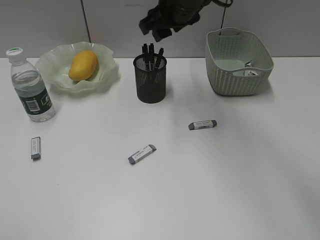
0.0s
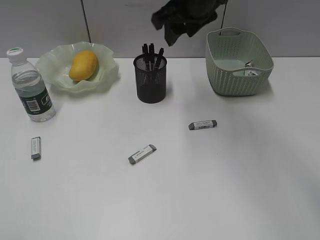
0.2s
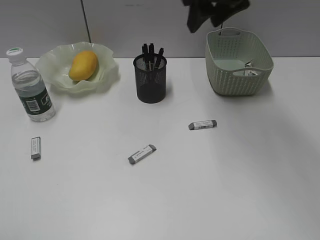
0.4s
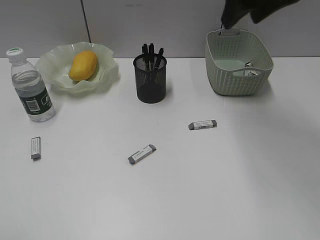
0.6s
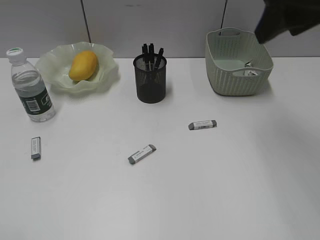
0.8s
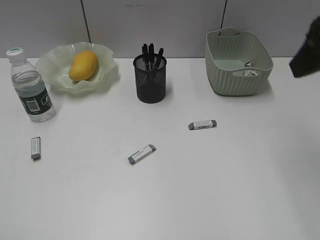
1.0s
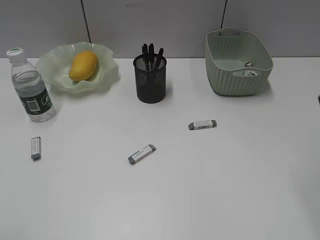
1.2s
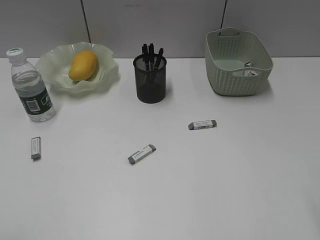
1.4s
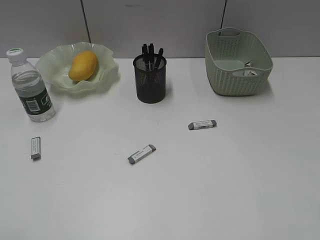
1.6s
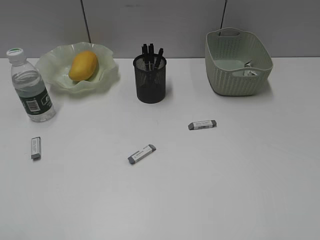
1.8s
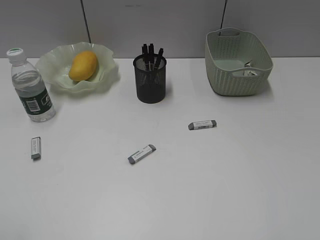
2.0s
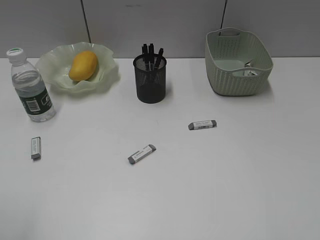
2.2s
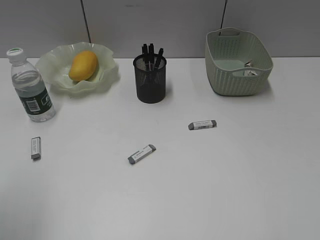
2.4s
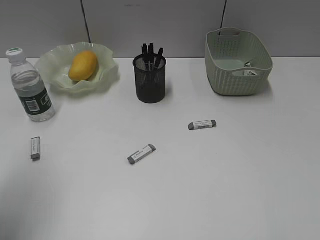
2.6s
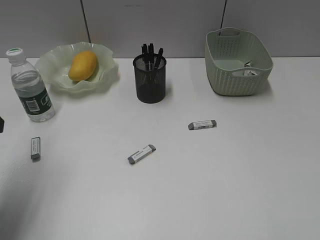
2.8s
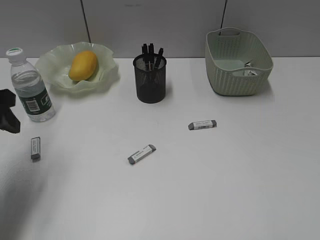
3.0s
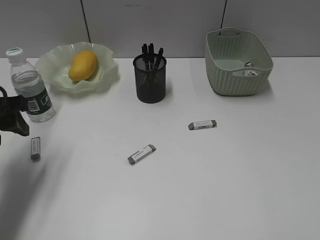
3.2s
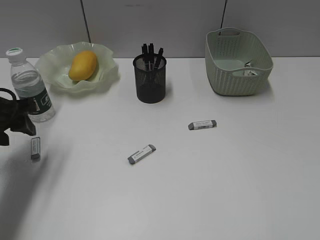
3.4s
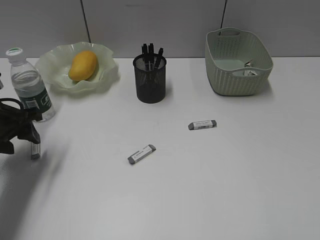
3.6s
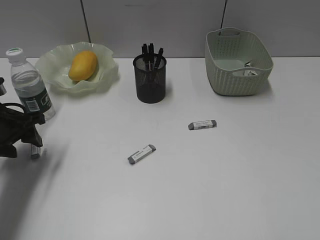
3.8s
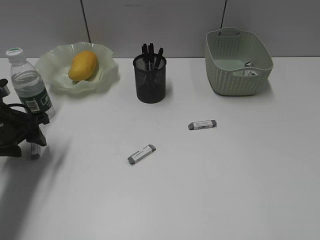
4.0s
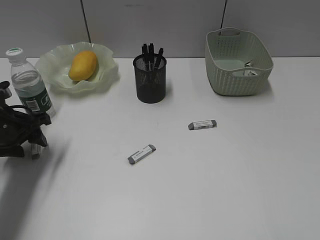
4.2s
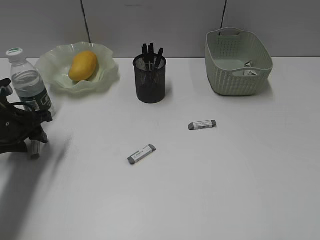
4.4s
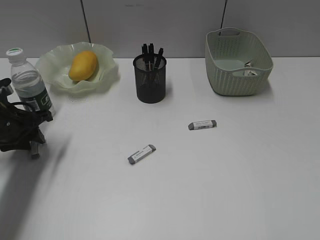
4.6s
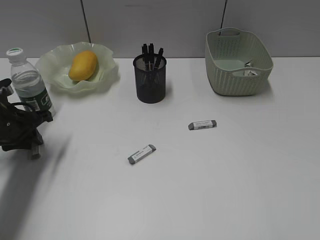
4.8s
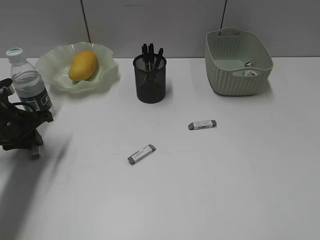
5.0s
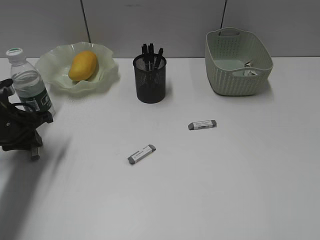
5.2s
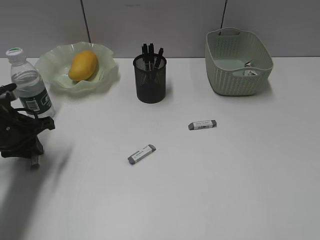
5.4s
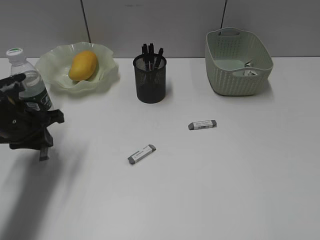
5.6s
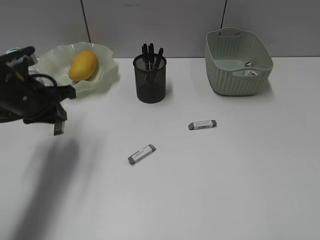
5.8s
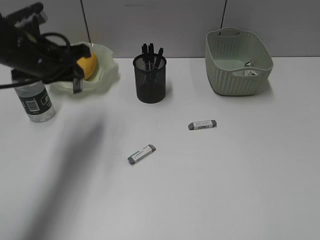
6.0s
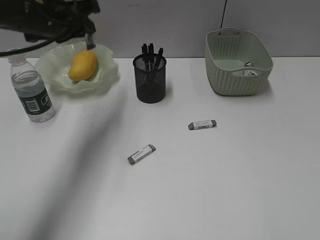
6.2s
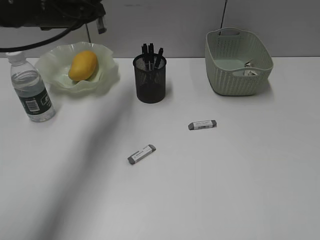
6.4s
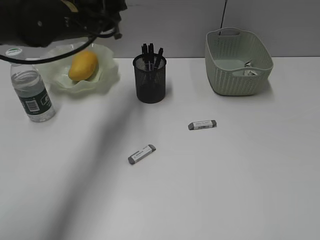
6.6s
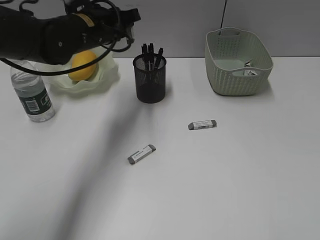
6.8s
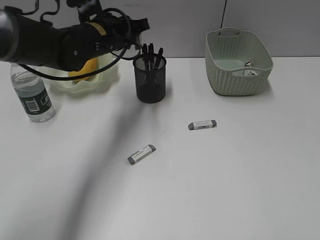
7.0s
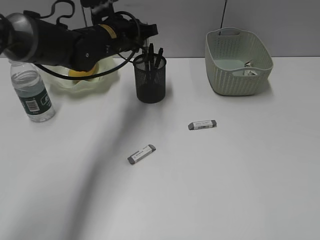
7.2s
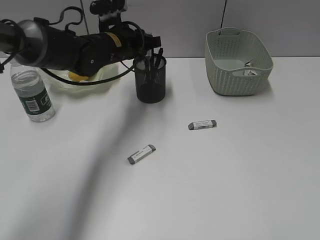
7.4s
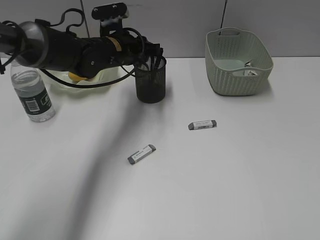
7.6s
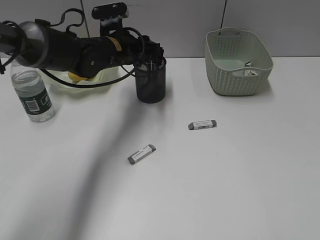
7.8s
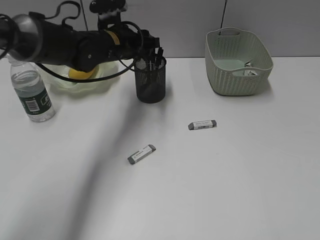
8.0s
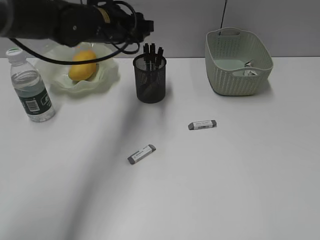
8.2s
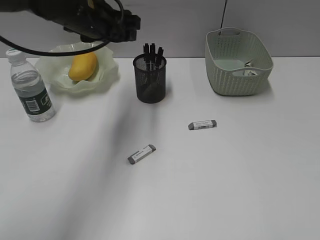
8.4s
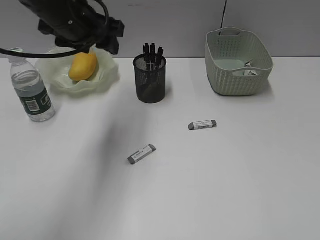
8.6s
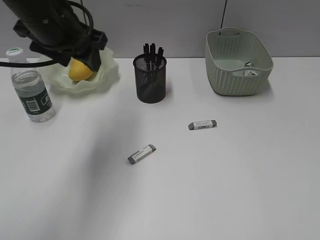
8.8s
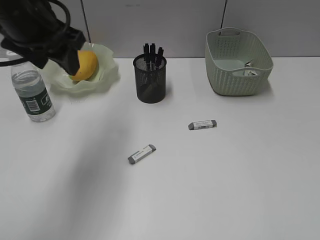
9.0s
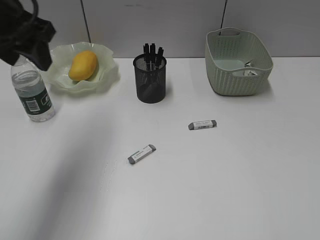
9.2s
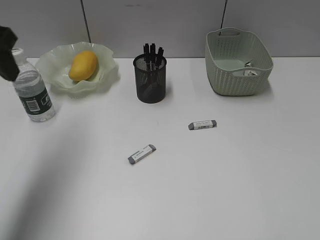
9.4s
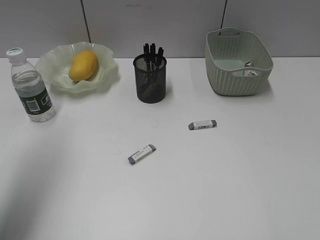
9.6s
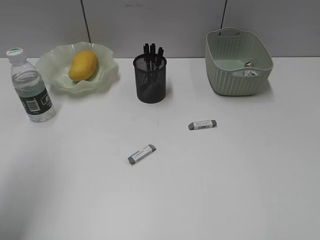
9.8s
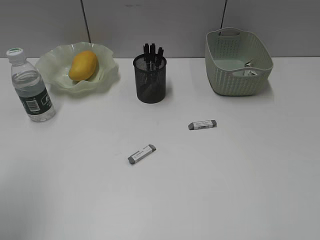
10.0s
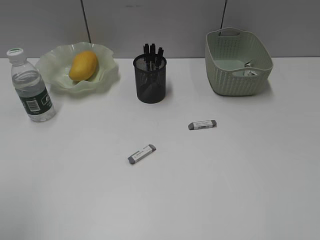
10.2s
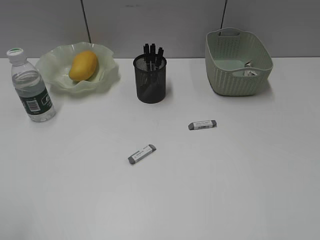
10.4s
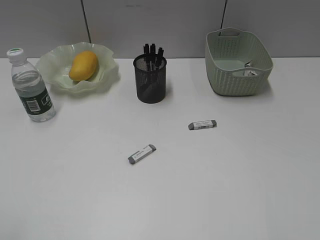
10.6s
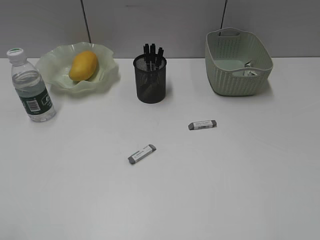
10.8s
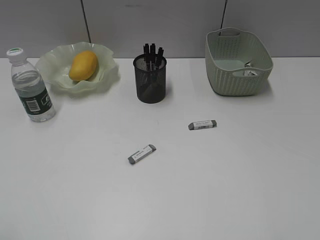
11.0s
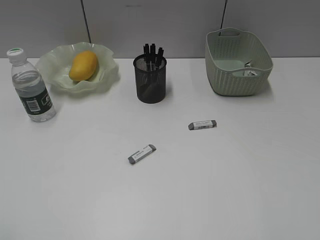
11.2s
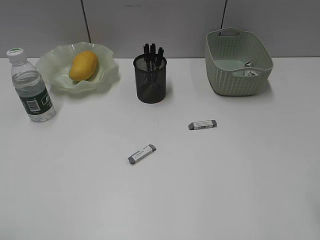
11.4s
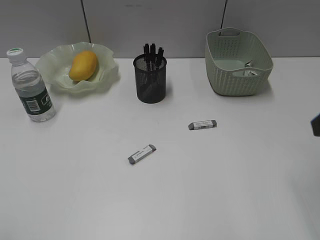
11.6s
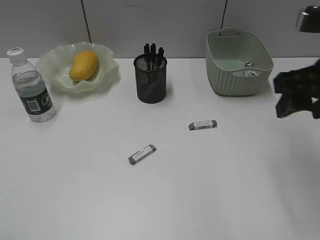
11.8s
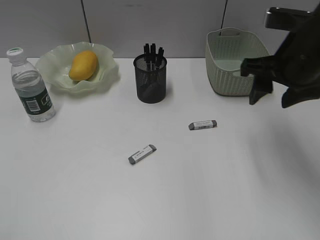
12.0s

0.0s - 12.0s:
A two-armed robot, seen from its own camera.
Step, 0.0s - 5.0s: Grasp the eraser with left gripper.
Step, 5.2s - 8.0s: Place the eraser in pen holder with left gripper.
0.0s - 1.6s: The right gripper shifts about 40 cm backward and to the right.
1.6s - 3.0s: The left gripper travels forward by some 25 cm.
3.0s - 4.4s: The left gripper heads downward and forward, covering approximately 15 cm.
4.4s - 6.0s: The left gripper moves upward and to the right, about 15 cm, and closes up.
6.0s - 7.6s: The left gripper heads to the right, forward and downward, covering approximately 15 cm.
7.6s - 9.0s: The left gripper goes about 20 cm upward, backward and to the left, and opens.
9.0s - 10.4s: The left gripper heads backward and to the left, covering about 30 cm.
10.4s - 12.0s: The right gripper heads forward, covering approximately 25 cm.

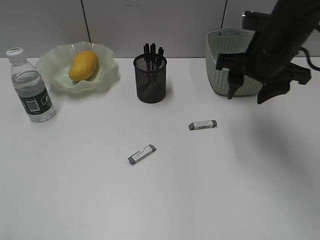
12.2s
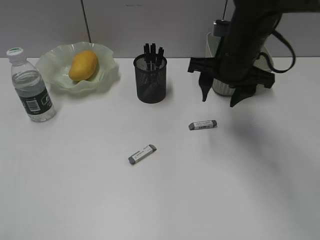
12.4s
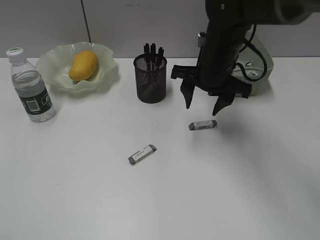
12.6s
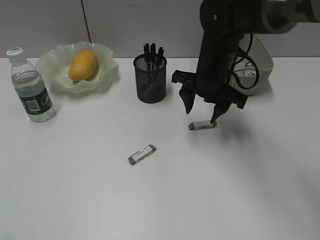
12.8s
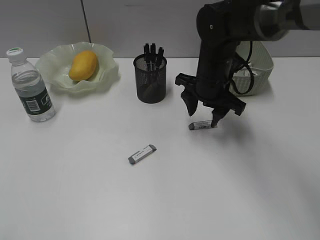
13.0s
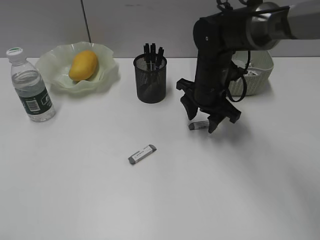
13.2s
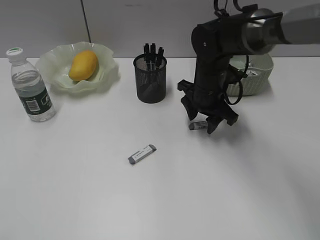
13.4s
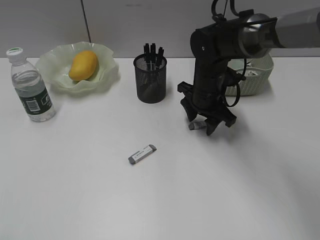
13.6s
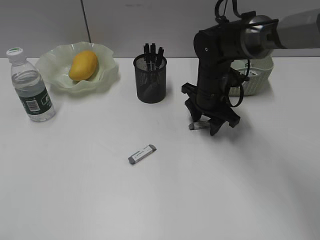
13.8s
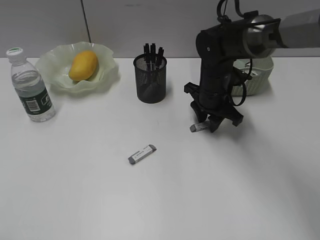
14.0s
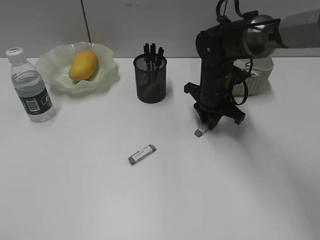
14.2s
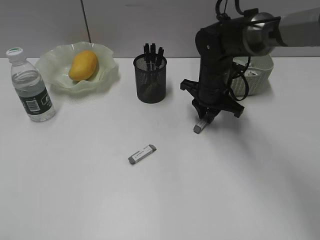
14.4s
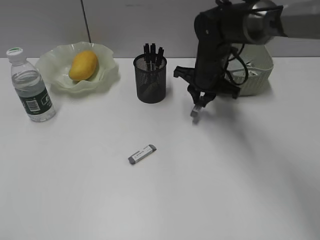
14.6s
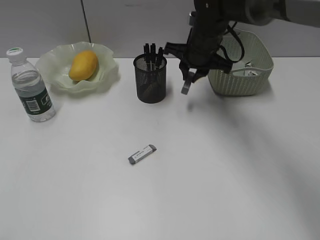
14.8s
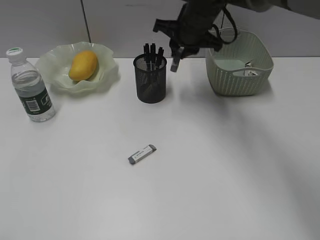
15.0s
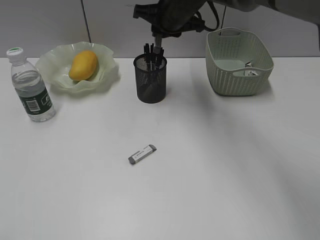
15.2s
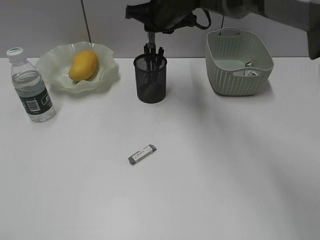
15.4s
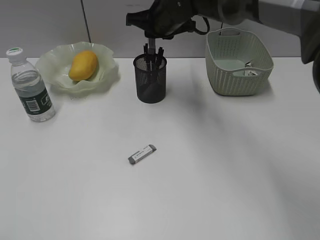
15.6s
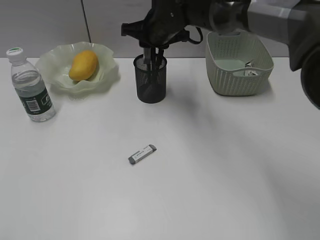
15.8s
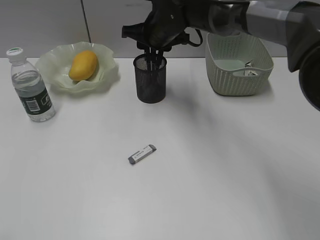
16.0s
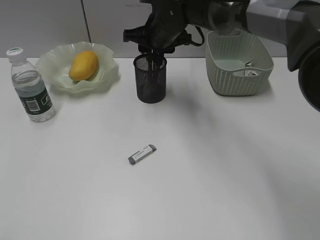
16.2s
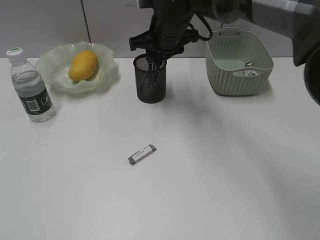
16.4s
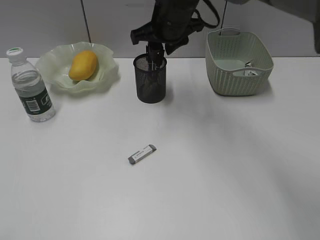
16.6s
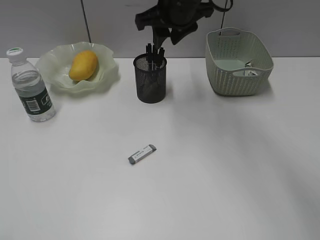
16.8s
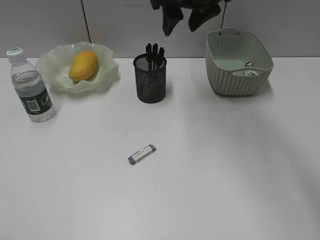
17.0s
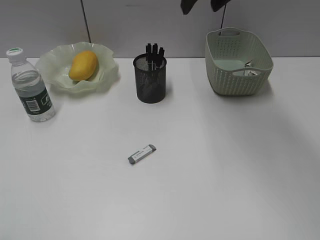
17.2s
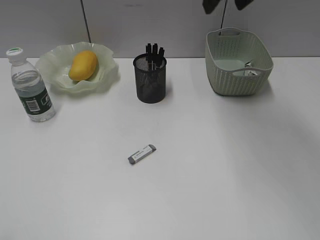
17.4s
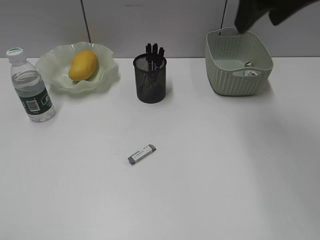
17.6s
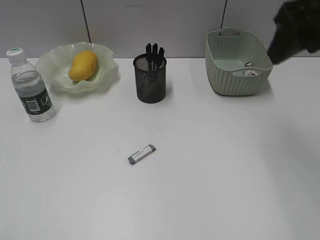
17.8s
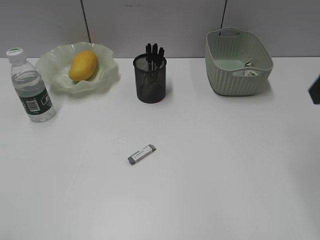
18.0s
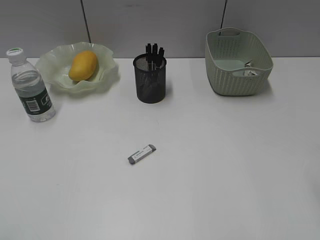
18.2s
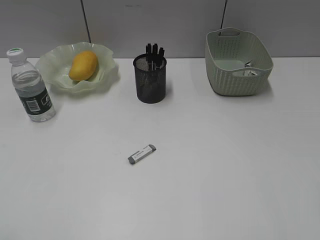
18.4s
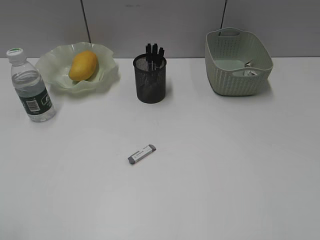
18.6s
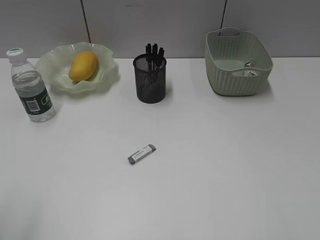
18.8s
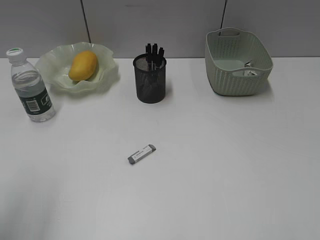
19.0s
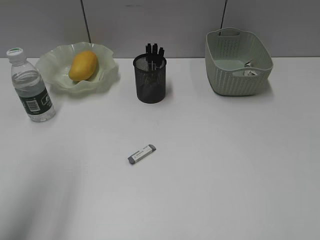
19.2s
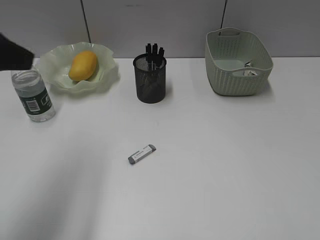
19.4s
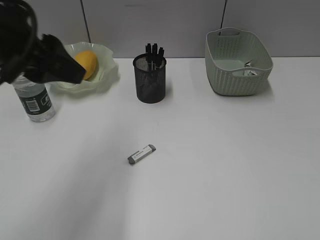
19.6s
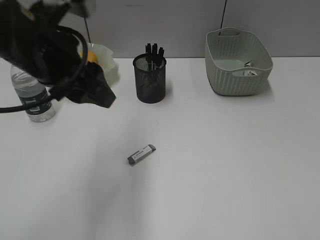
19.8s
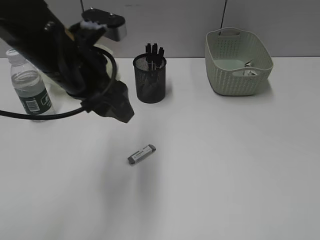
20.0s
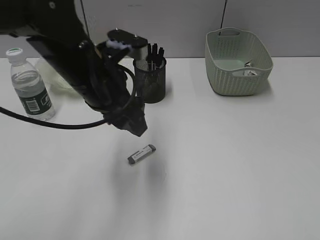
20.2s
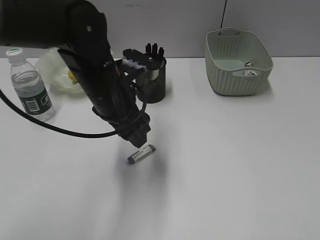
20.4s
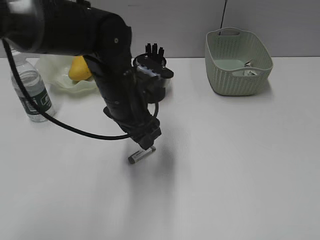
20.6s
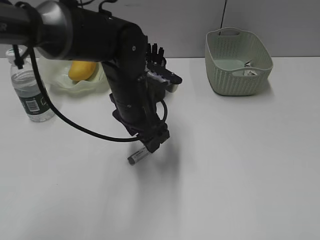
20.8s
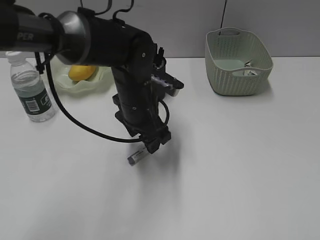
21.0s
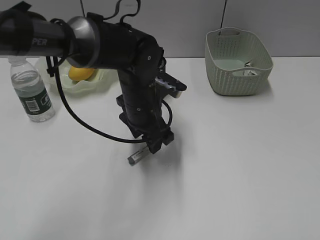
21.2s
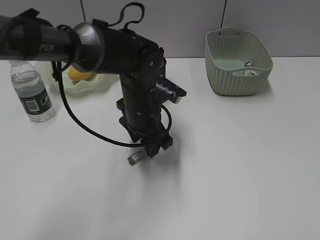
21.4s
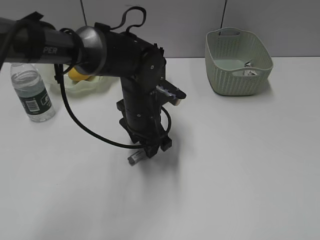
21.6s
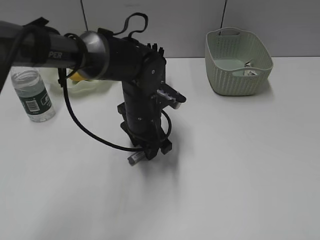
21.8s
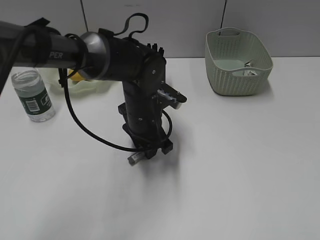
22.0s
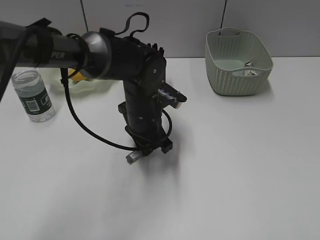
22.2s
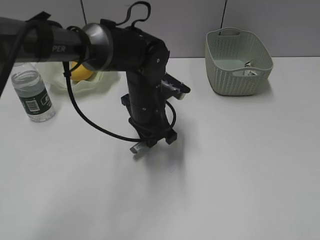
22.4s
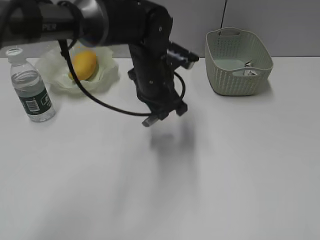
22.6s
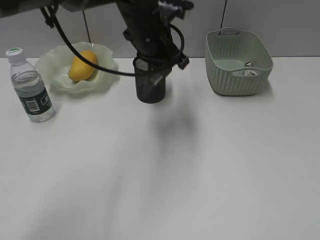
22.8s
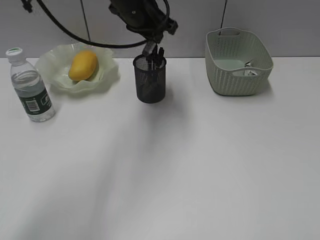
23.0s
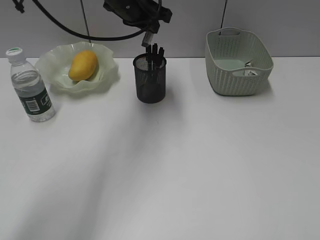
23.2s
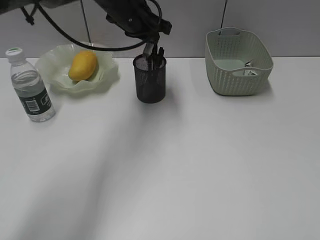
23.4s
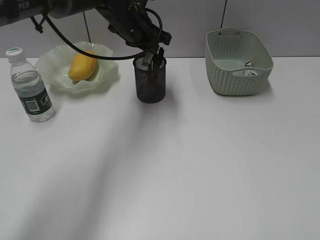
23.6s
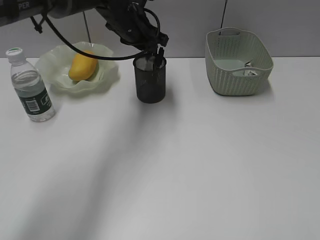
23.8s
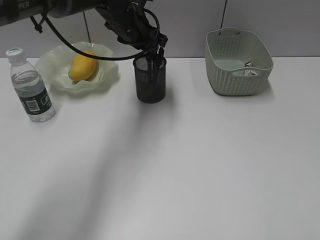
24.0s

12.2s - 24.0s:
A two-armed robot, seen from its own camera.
Step, 12.2s - 14.2s: Grasp the eraser with right gripper.
Step, 14.4s - 16.2s: Place the eraser in pen holder with right gripper.
Step, 16.4s - 22.2s: Grasp the eraser with left gripper.
Step, 22.4s - 23.8s: Place the eraser in pen holder with left gripper.
12.2s - 13.6s: The right gripper travels downward, to the left and forward by approximately 15 cm.
13.6s - 15.2s: The right gripper goes approximately 15 cm upward, forward and to the left, and closes its fingers.
15.2s - 16.6s: The right gripper opens its fingers.
16.6s - 18.2s: The right gripper travels backward and to the right by about 35 cm, and opens its fingers.
18.2s - 19.6s: The right gripper is displaced backward by about 15 cm; the left gripper heads forward and to the right, covering about 30 cm.
19.6s - 21.0s: The left gripper goes some 25 cm downward, to the right and forward.
21.0s - 22.6s: The left gripper closes its fingers.
22.6s - 24.0s: The left gripper goes about 10 cm forward and upward, and opens.
